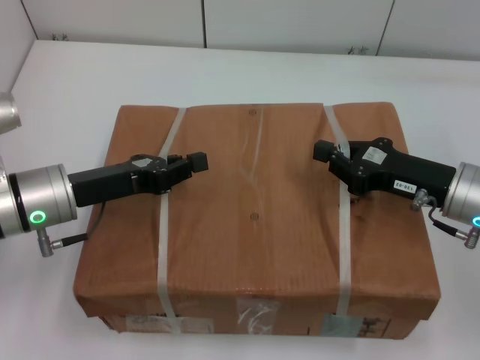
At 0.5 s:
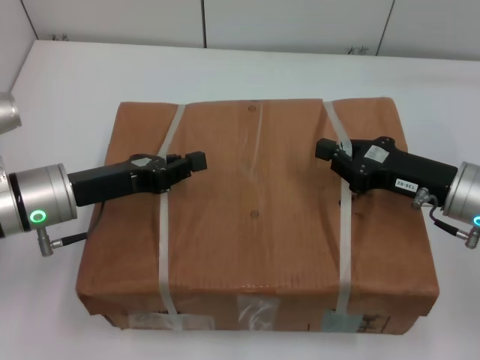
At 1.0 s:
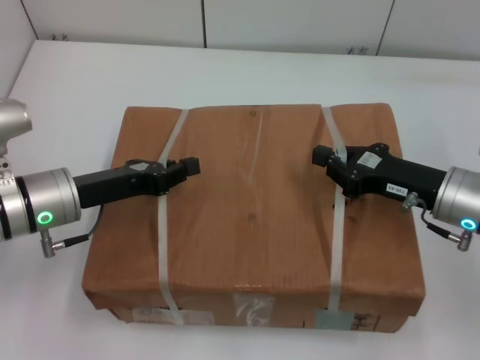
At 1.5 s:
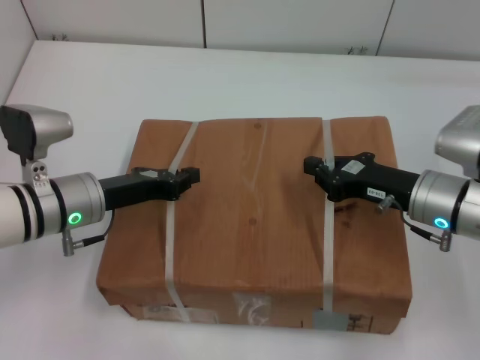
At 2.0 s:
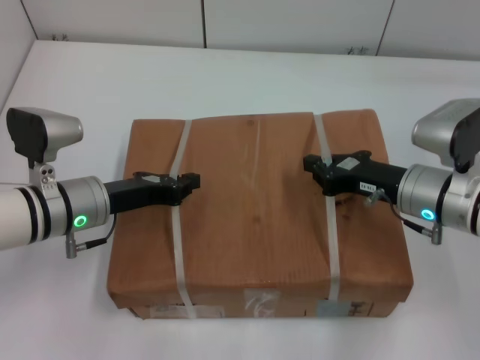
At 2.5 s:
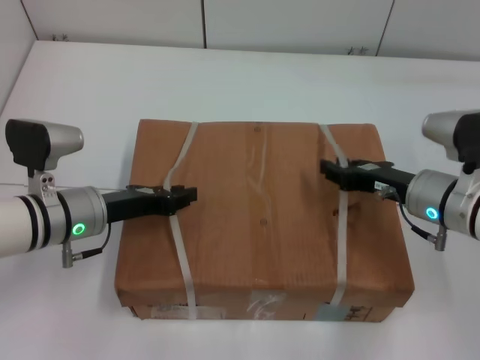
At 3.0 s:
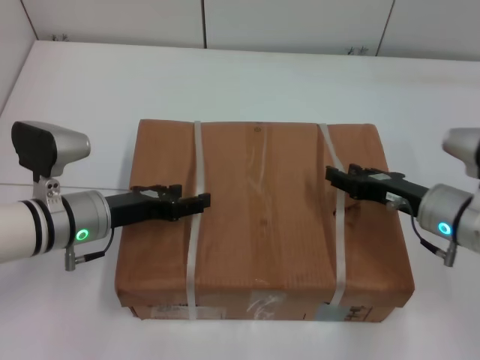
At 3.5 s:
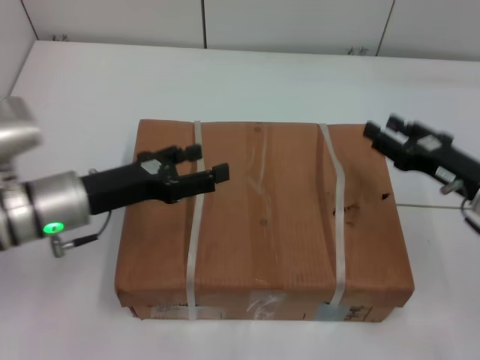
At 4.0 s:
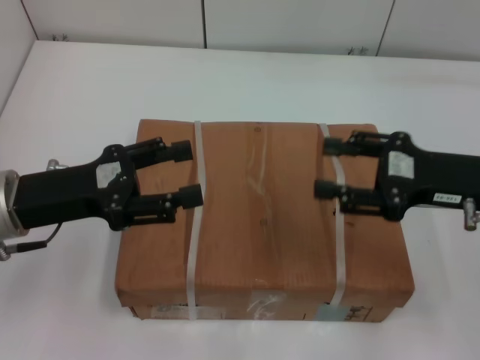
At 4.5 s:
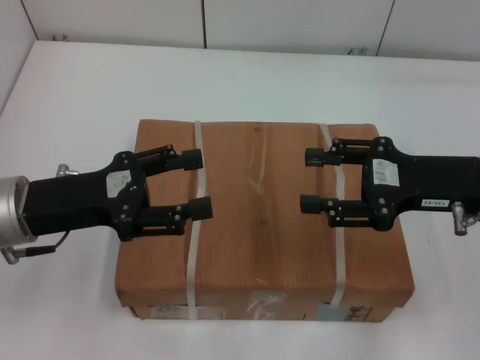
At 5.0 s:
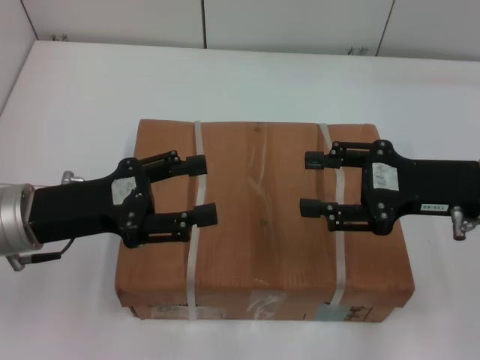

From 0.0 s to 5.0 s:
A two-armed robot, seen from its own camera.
Task of the whole recording: place the box on the table with both arms.
Step, from 0.0 s to 2.0 s: Place the box on the table with left gripper.
Step, from 0.0 s to 2.0 s: Place the box on the table with right gripper.
Step, from 2.5 s to 3.0 s: Loosen the box on the table with left gripper.
Step, from 2.5 s to 3.0 s: Loosen the box on the table with right gripper.
From 0.0 s to 2.5 s: The right gripper changes place by about 5 cm; the left gripper ends up some 5 cm from where it was.
From 2.5 s to 5.0 s: The right gripper travels upward by roughly 10 cm, and opens its fingers. The left gripper moves upward and backward, about 10 cm, and opens up.

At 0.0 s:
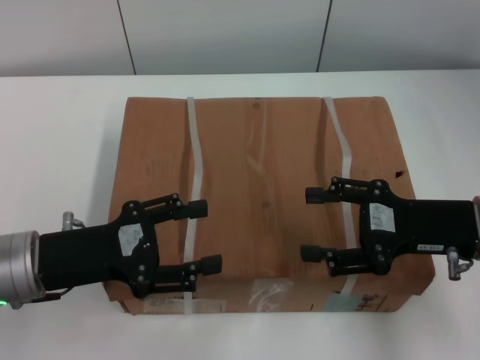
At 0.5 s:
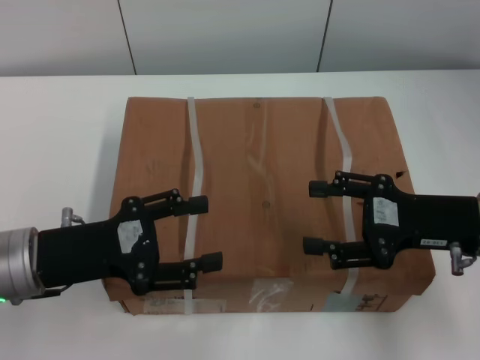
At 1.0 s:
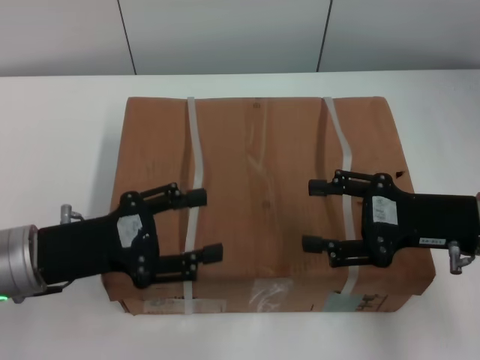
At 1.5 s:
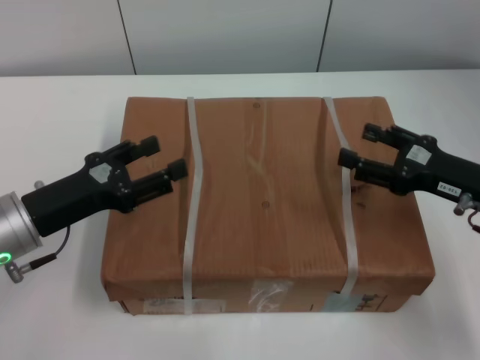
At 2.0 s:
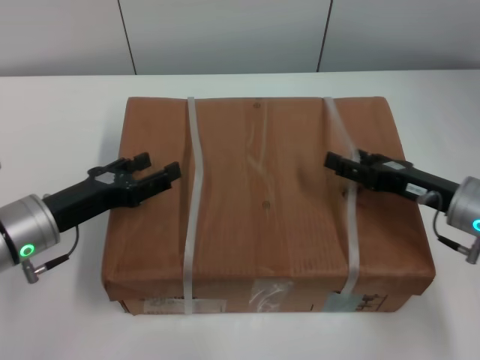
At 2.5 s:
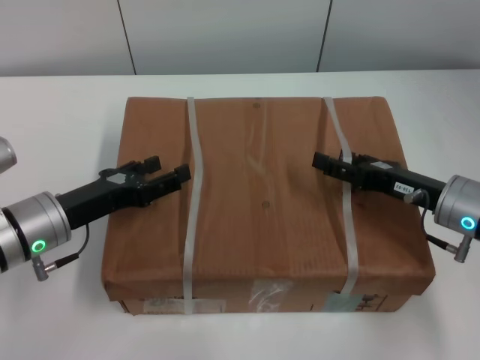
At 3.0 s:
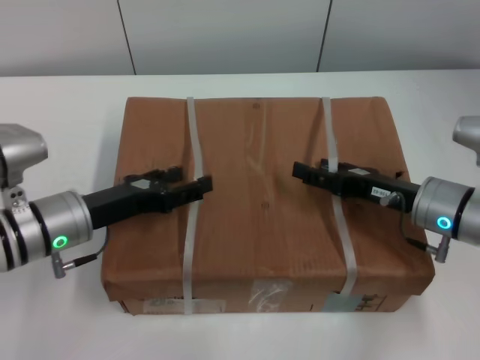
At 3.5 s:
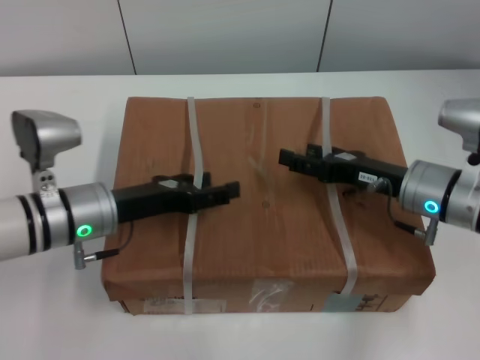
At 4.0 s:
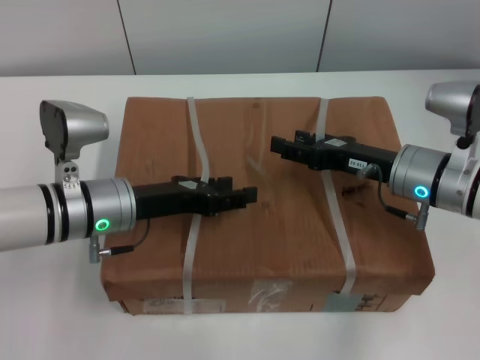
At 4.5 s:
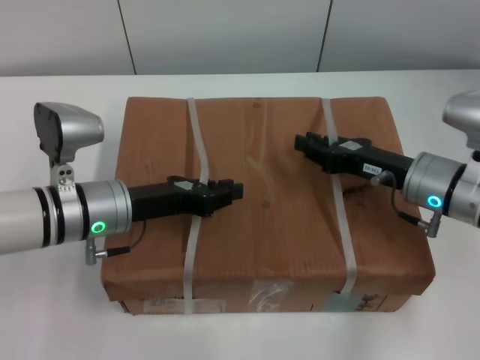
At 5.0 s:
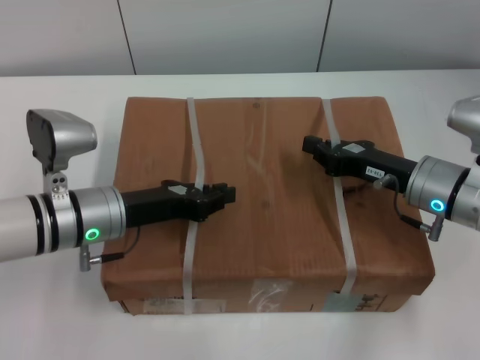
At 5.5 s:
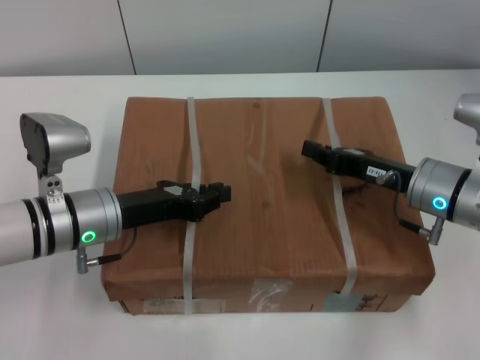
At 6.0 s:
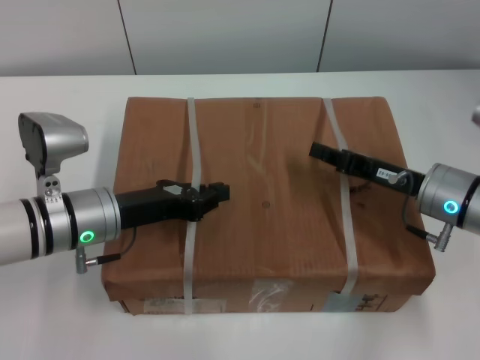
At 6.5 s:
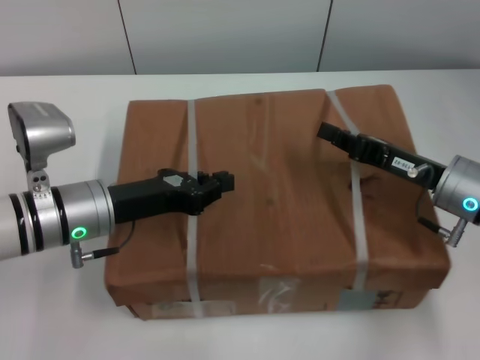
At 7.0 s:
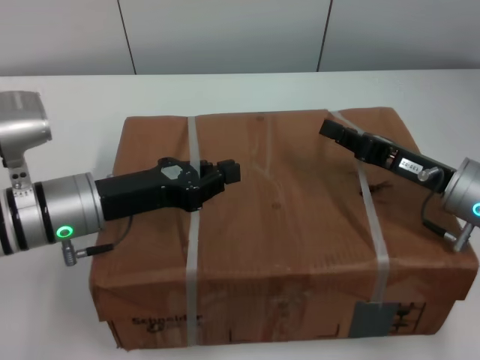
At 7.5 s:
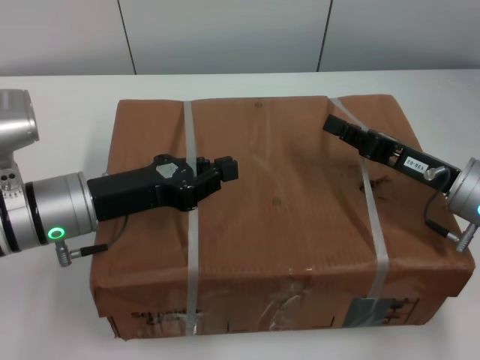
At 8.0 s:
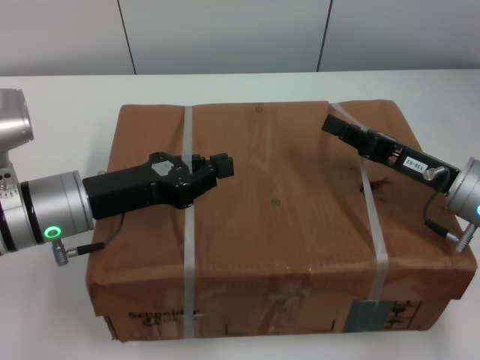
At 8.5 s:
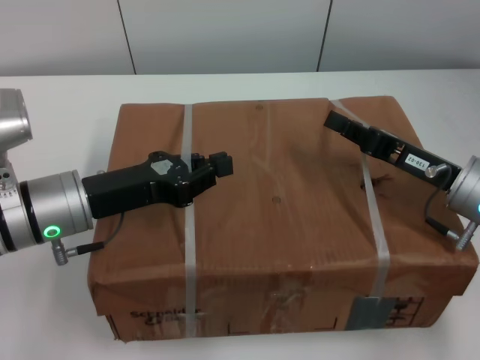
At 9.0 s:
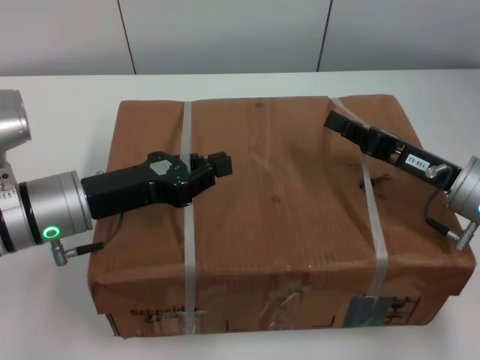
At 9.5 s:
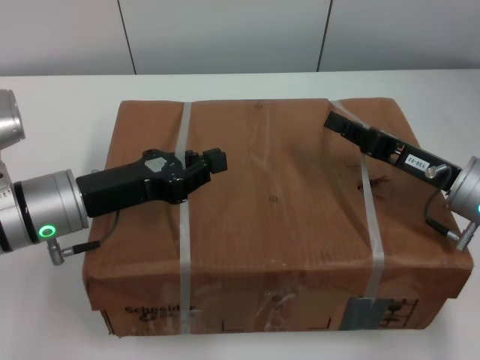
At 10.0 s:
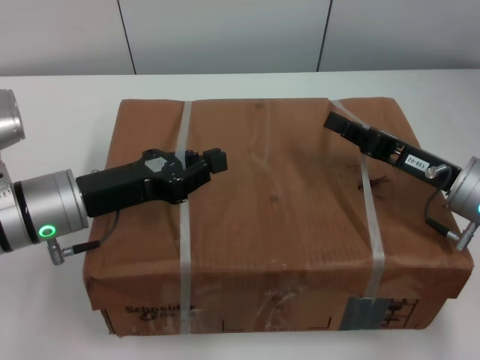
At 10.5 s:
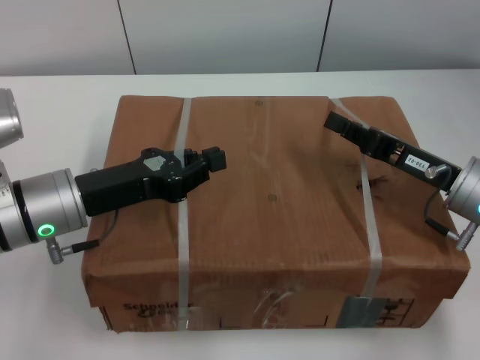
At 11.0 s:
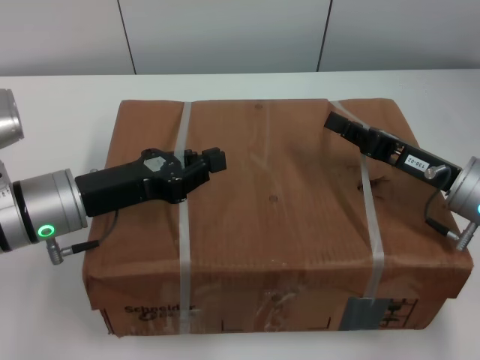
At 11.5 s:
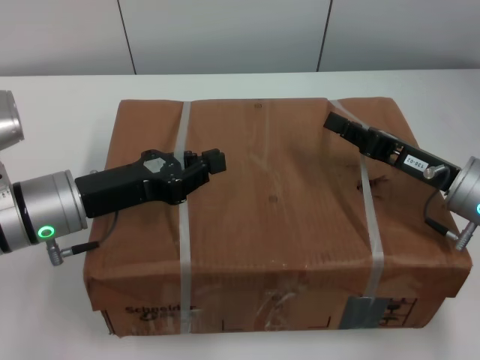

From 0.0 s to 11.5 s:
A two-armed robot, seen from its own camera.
Task of the whole recording: pick up the box from the table with both arms.
Step, from 0.0 s to 5.0 s: Grasp the bandage with left gripper.
Step, from 0.0 s to 5.0 s: Grasp the bandage with right gripper.
Step, from 5.5 s to 7.0 s: Lift the box with left gripper.
Step, from 5.5 s to 7.0 s: Lift the box with right gripper.
From 0.0 s to 2.0 s: The left gripper changes place by some 5 cm; the right gripper goes roughly 5 cm downward.
From 2.0 s to 4.0 s: The right gripper heads to the left, covering approximately 5 cm. Meanwhile the left gripper moves to the right, some 5 cm.
From 4.0 s to 6.0 s: The left gripper closes up; the right gripper closes its fingers.
From 7.5 s to 11.5 s: Neither gripper changes place.

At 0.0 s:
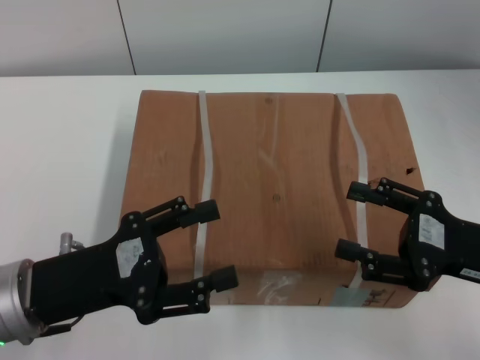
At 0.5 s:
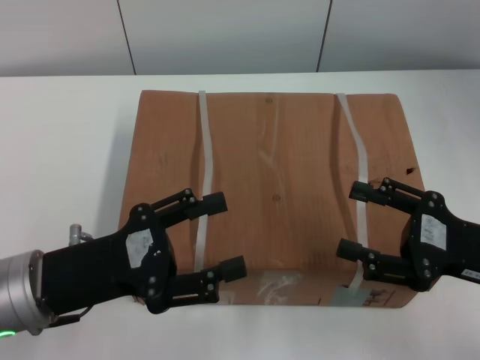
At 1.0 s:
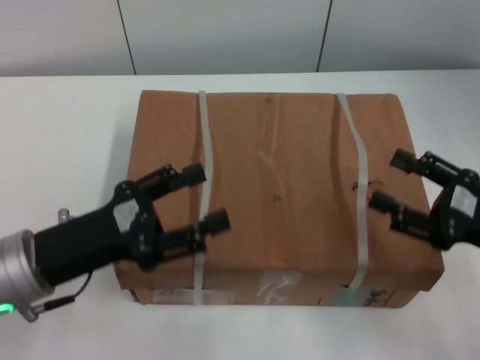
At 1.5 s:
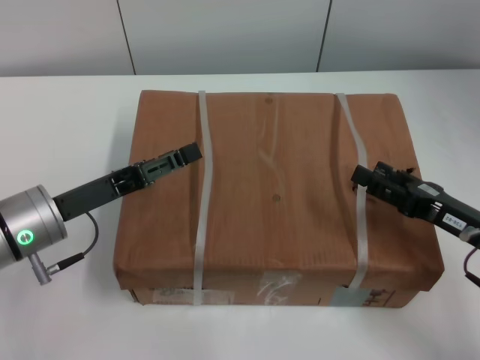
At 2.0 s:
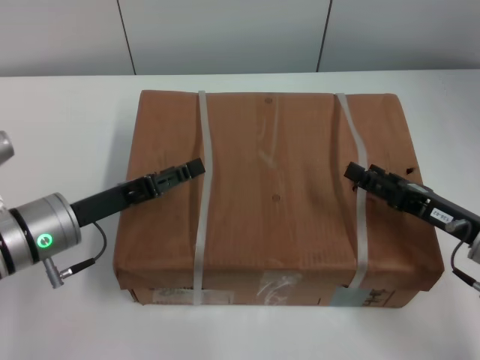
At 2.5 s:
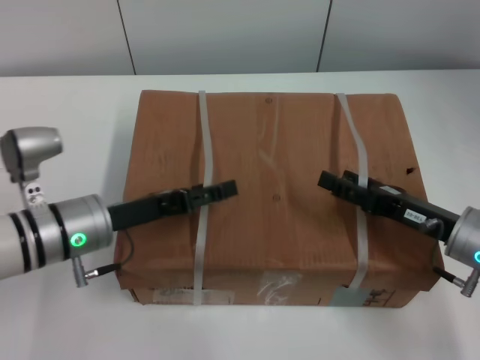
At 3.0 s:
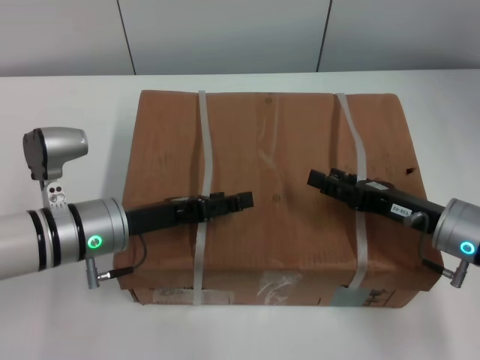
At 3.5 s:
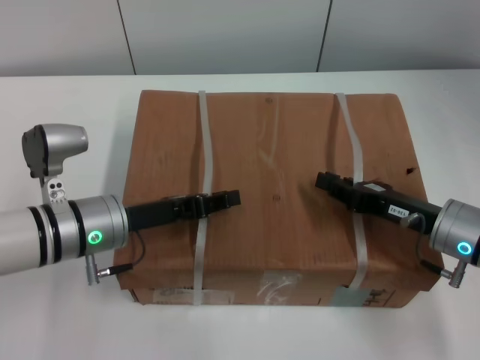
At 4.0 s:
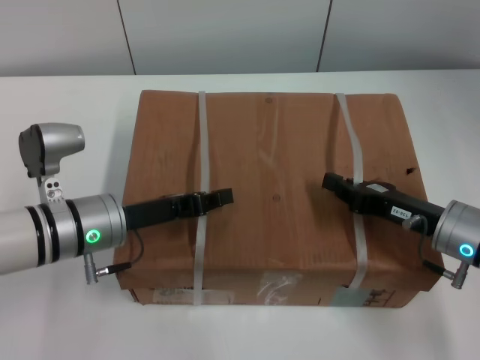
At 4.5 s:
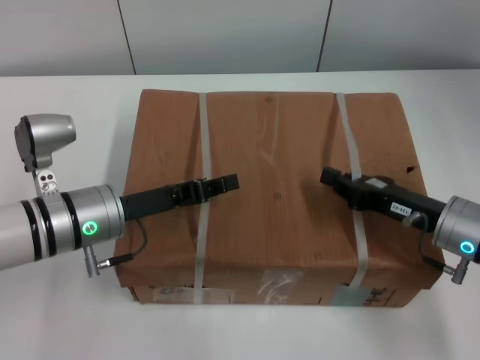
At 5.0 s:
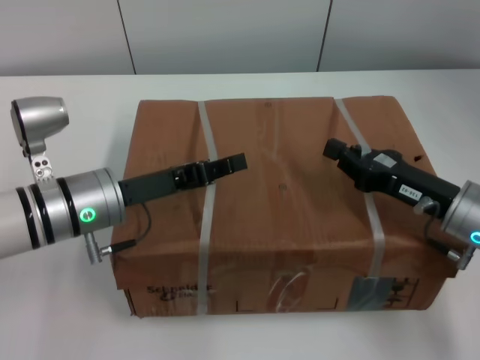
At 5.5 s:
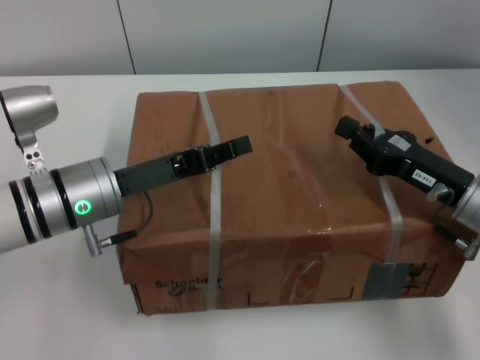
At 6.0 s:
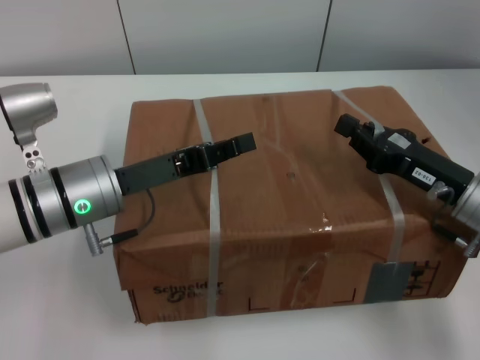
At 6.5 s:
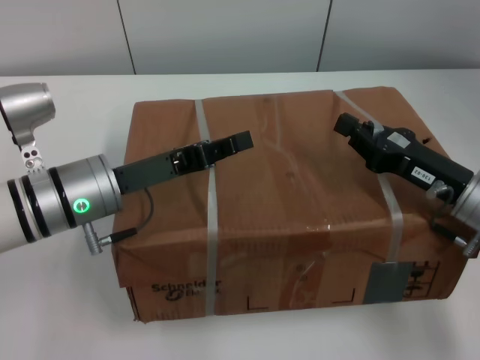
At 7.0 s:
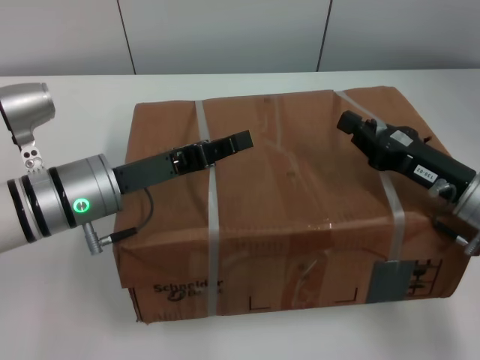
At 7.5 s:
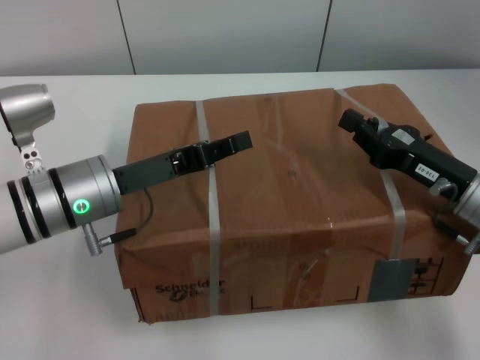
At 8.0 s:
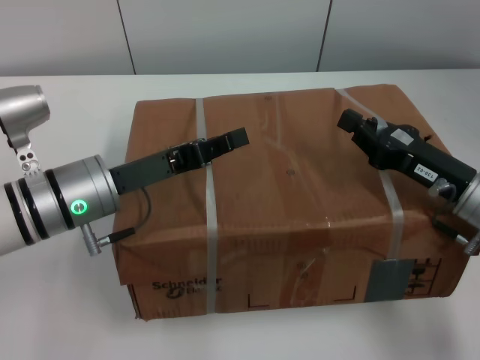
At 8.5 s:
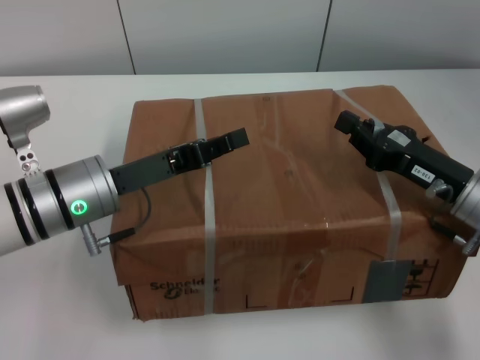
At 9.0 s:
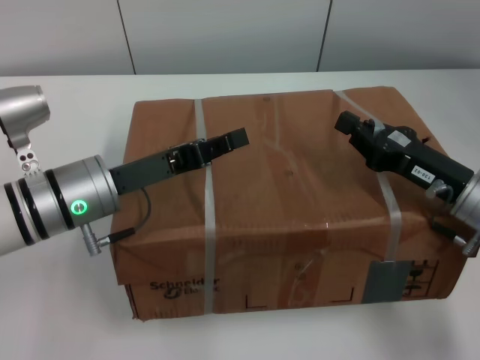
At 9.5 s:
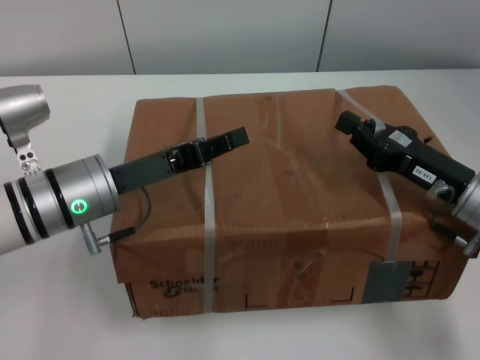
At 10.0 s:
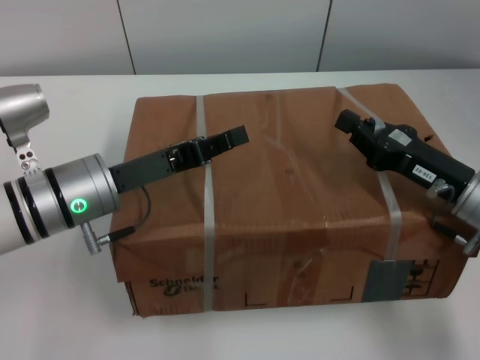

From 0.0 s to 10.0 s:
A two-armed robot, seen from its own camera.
Task of the whole recording: pick up the box from the table with both arms.
Step, from 0.0 s to 3.5 s: Grasp the bandage with left gripper.
Step, from 0.0 s to 3.5 s: Grasp the bandage with right gripper.
Step, from 4.0 s to 5.5 s: Lift the box with left gripper.
Step, from 4.0 s to 5.5 s: Lift the box with right gripper.
From 0.0 s to 2.0 s: The right gripper moves downward, some 5 cm, while the left gripper is displaced forward by approximately 10 cm.
From 2.0 s to 4.0 s: The left gripper closes its fingers, while the right gripper closes up.
From 6.0 s to 10.0 s: Both grippers stay about where they are.
